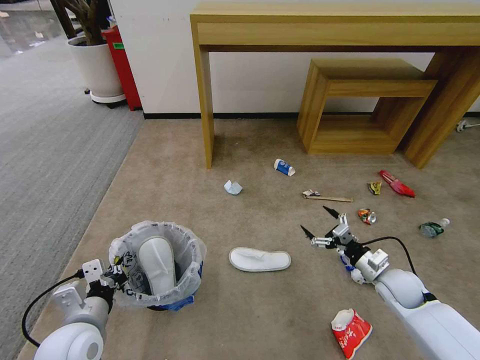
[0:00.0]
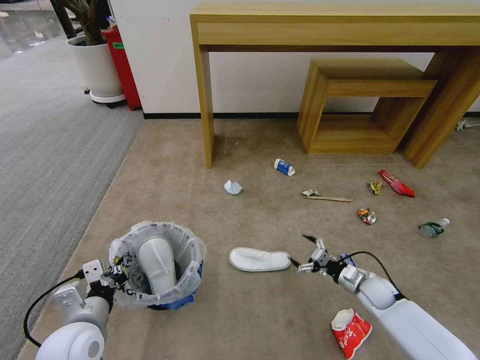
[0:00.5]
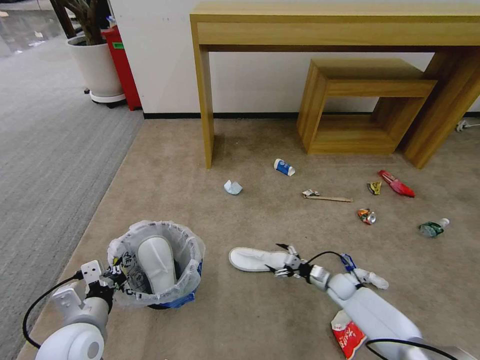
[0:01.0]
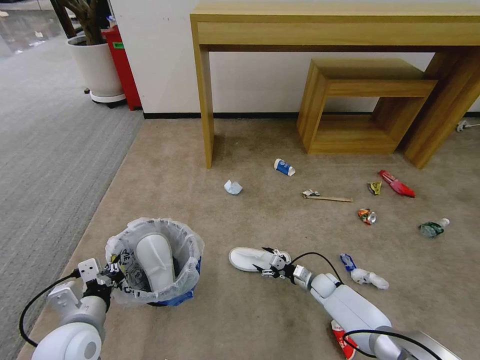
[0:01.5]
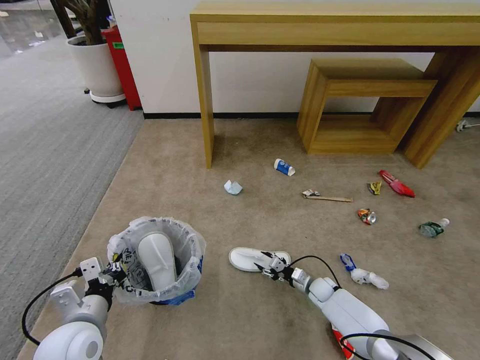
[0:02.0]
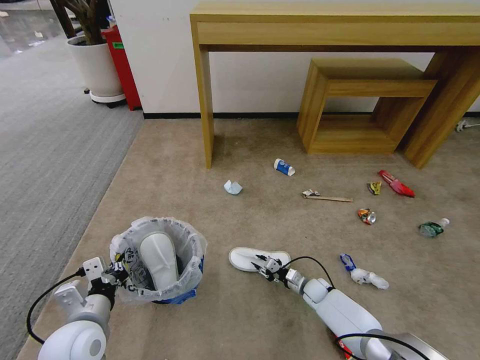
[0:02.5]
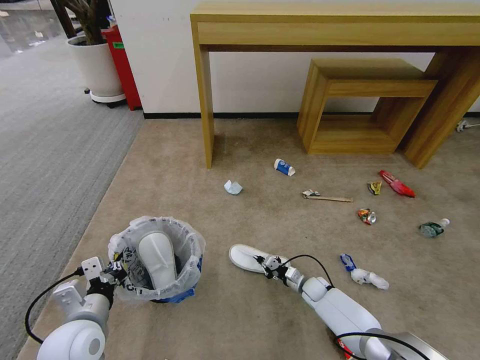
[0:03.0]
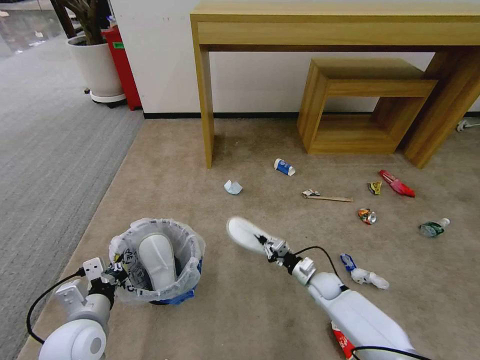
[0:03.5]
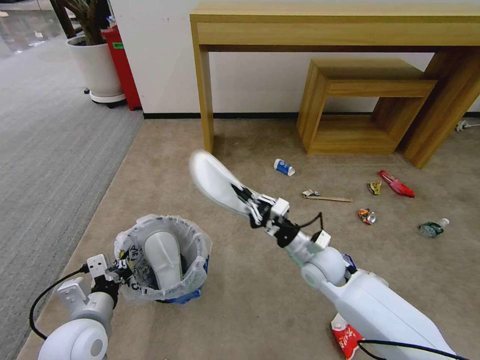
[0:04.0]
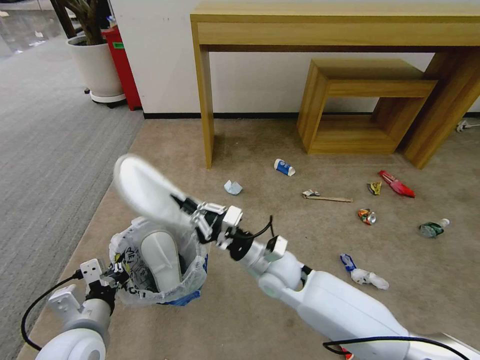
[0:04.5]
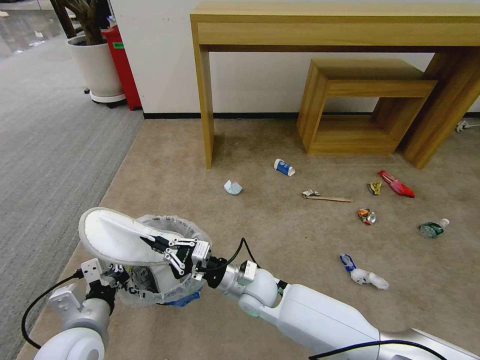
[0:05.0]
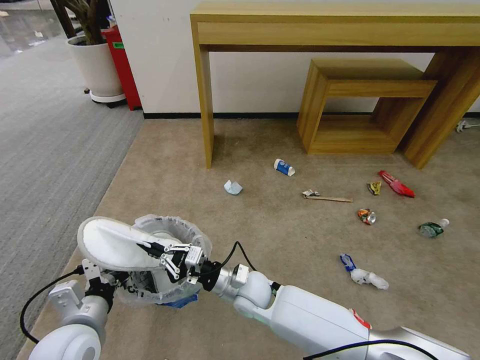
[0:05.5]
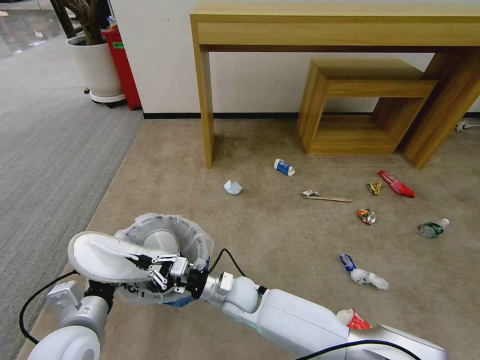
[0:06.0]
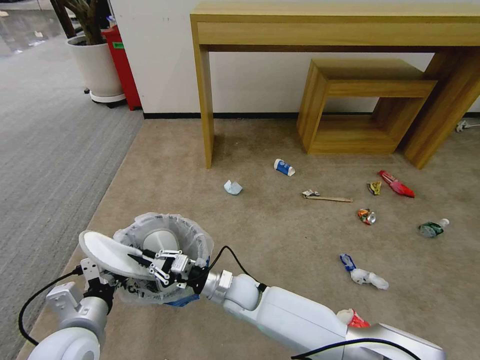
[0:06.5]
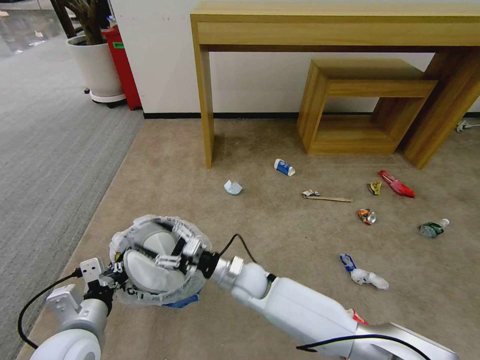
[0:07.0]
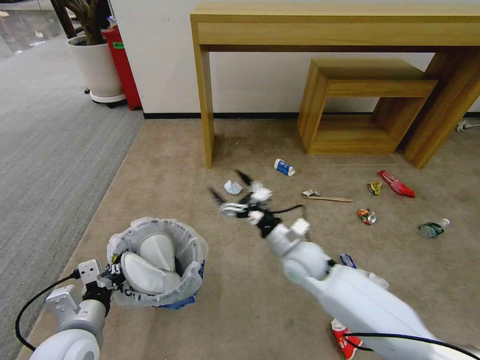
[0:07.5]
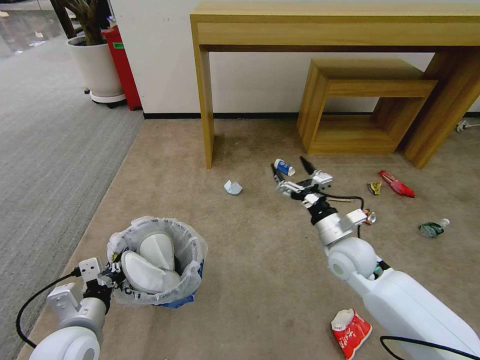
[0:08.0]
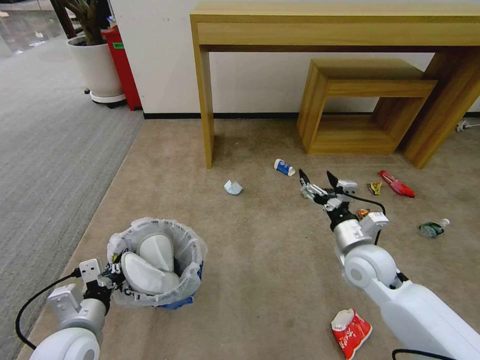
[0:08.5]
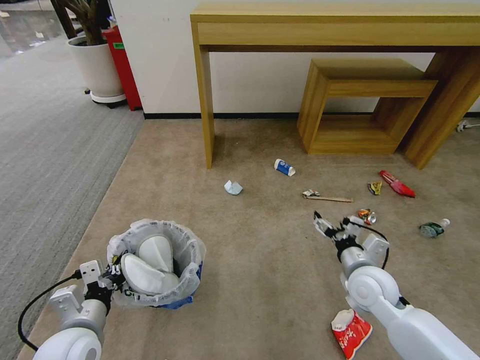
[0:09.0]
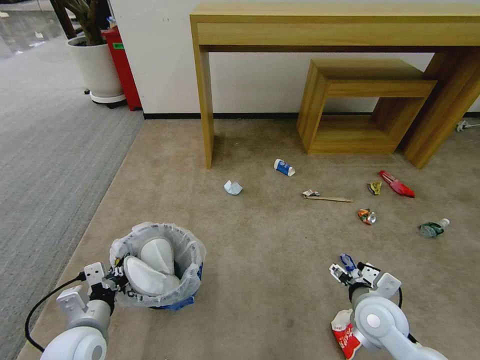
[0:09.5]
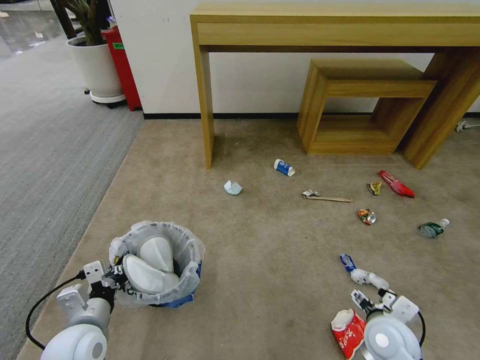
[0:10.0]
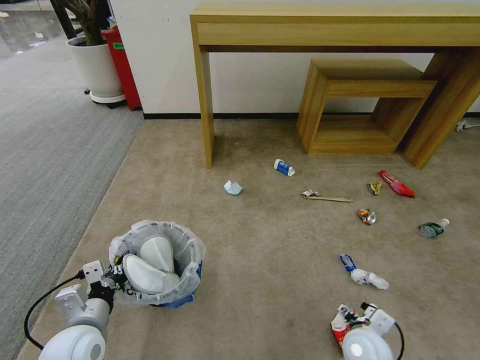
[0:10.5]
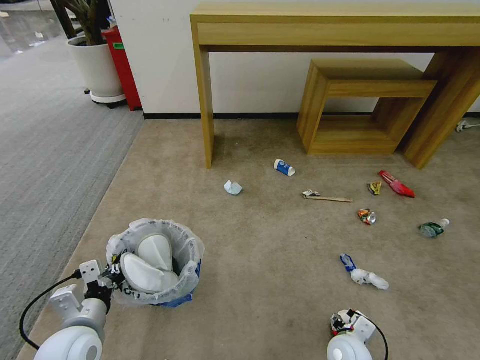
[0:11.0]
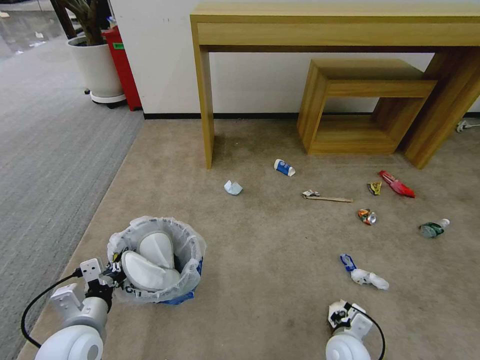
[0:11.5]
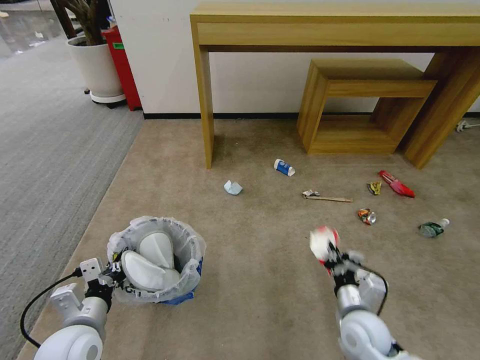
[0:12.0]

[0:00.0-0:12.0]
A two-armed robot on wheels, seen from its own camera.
Task of the whole recording: Pick up the trash bin and place the garbage on the floor into it.
0:00.0 to 0:02.0: The right gripper shifts roughly 20 cm downward and to the left, and closes up.
0:02.0 to 0:04.0: The right gripper moves upward, some 25 cm, and closes.
0:04.0 to 0:06.0: The right gripper shifts some 20 cm to the left and downward.
0:06.0 to 0:08.0: The right gripper heads to the right and upward, covering roughly 30 cm, and opens.
0:08.0 to 0:10.0: The right gripper heads backward, downward and to the right, covering roughly 15 cm.
0:10.0 to 0:12.0: The right gripper travels downward and back again, some 10 cm each way, and closes its fingers.

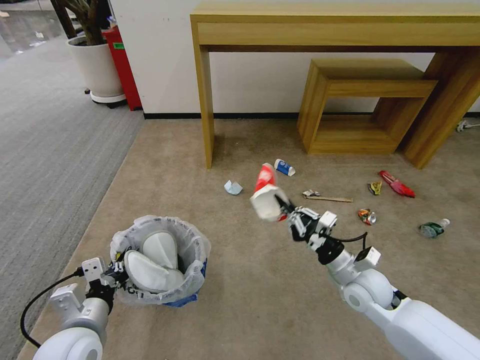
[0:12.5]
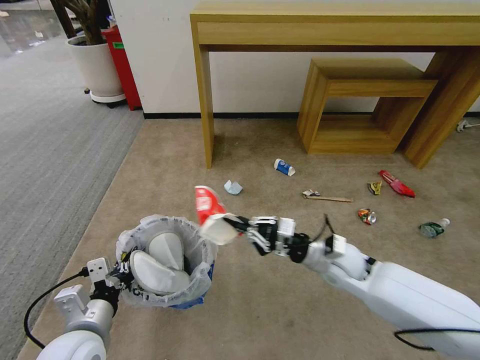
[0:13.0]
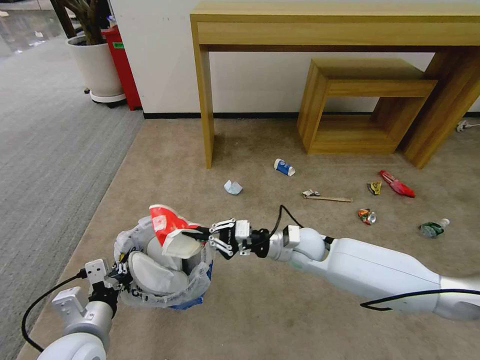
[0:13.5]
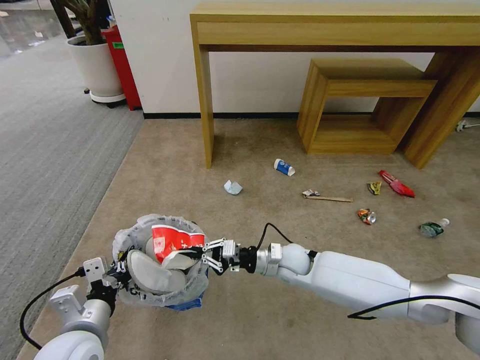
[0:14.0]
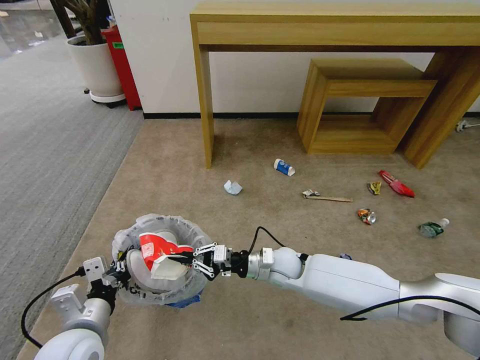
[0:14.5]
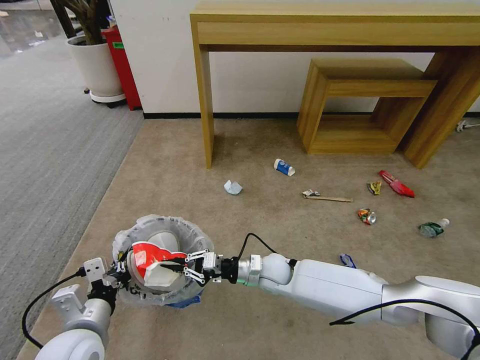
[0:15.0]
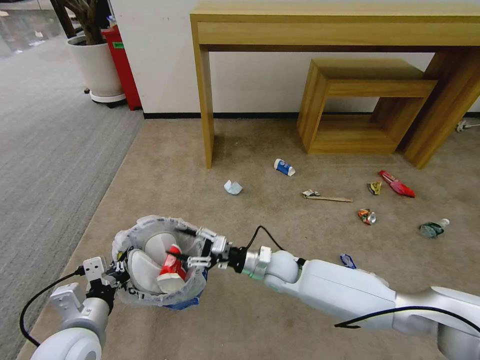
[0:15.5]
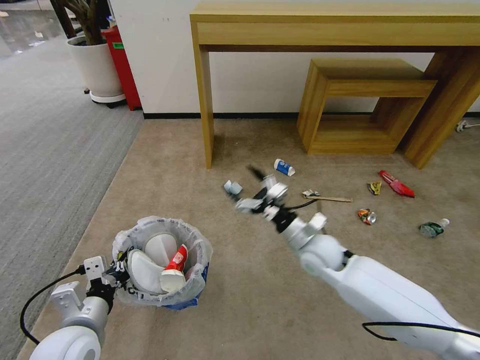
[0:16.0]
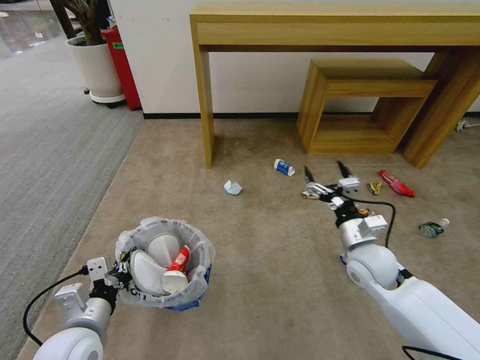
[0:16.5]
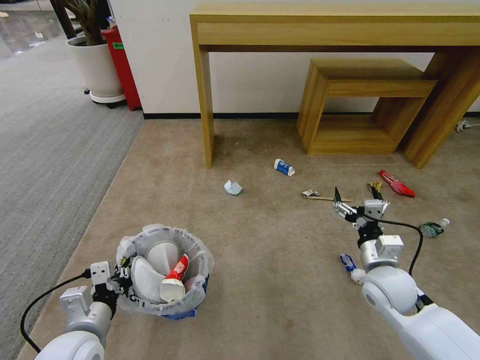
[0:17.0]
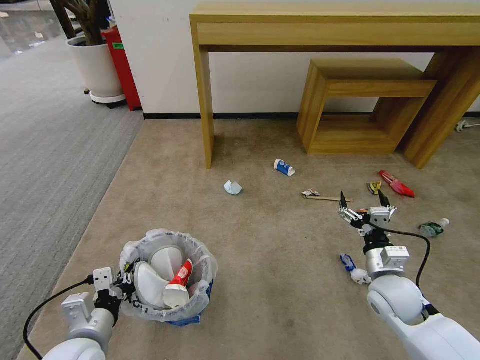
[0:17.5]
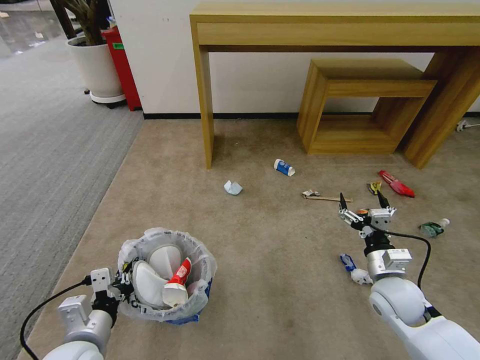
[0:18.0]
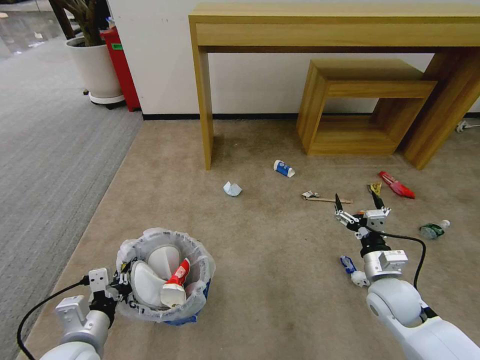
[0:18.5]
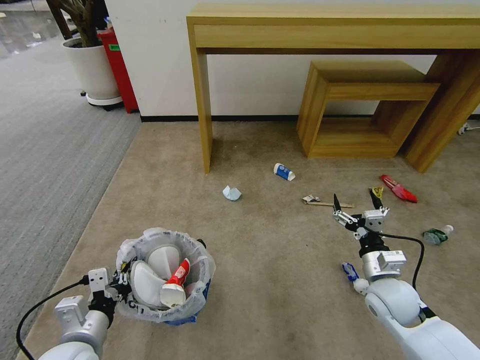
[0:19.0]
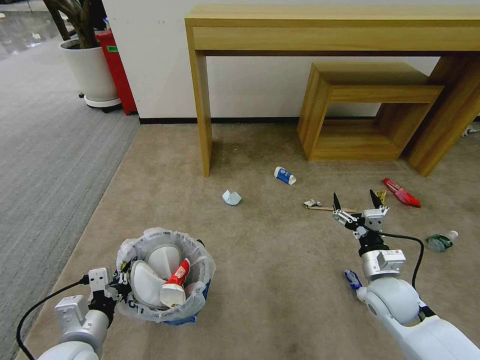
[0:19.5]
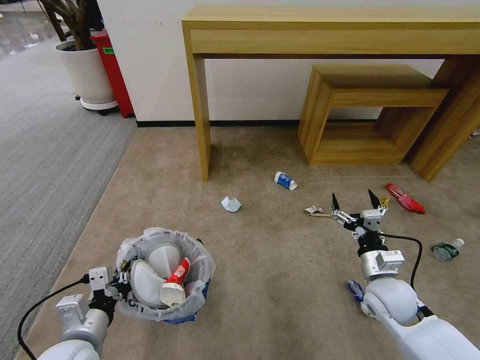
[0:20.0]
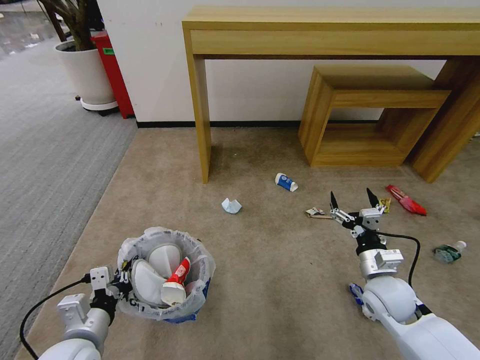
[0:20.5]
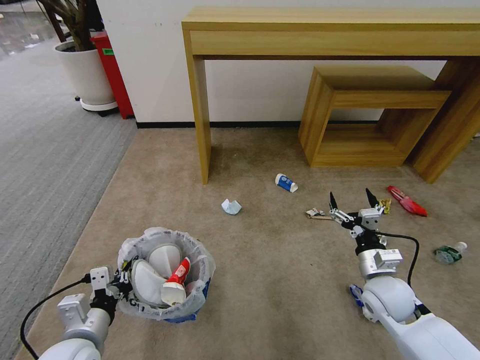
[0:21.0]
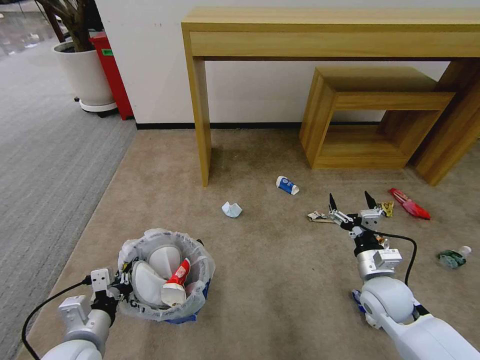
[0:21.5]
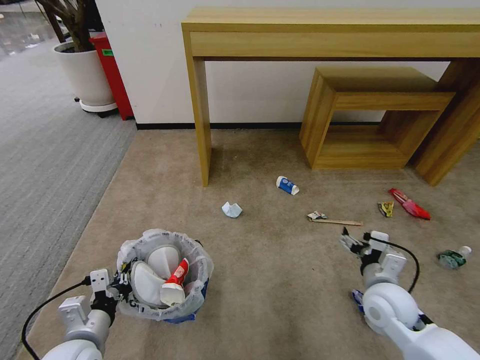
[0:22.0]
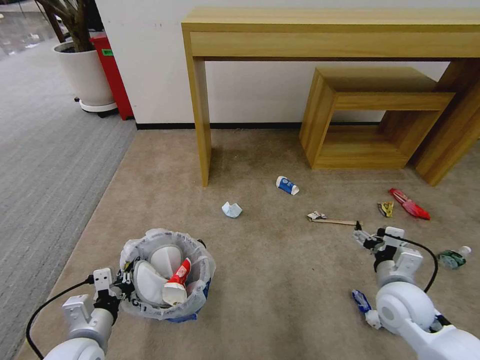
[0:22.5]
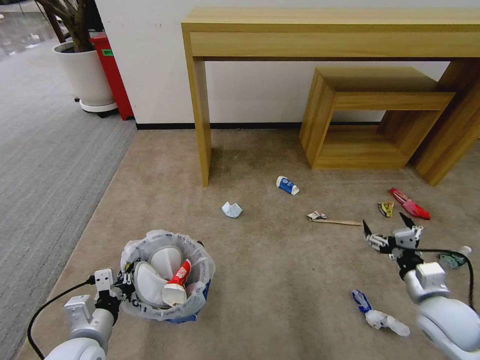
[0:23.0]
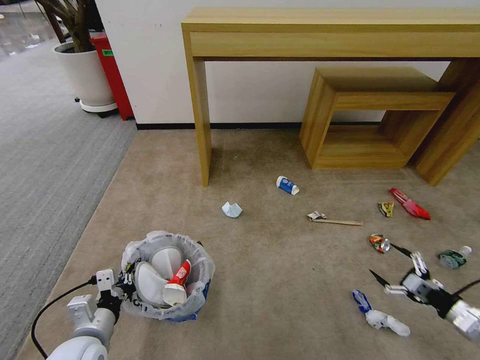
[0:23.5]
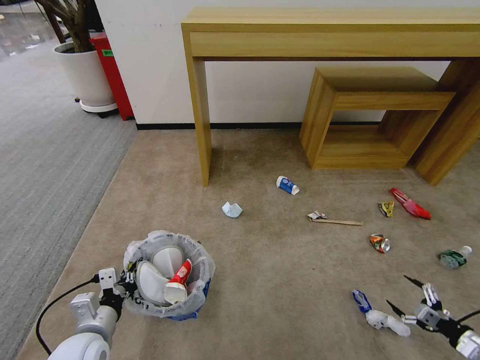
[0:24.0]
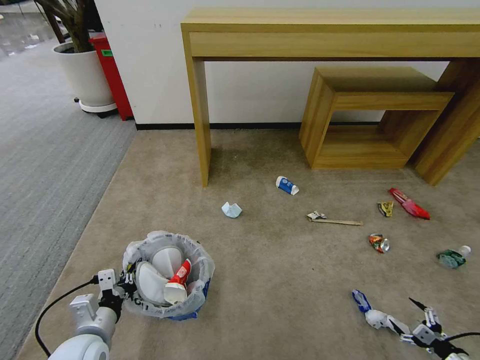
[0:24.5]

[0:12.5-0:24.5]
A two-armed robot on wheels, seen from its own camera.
Task of the whole recording: Pick up the trash bin and place the garbage on the floor into it.
0:12.5 to 0:14.5: The right gripper heads to the left and forward, covering some 20 cm.
0:14.5 to 0:16.5: The right gripper goes roughly 20 cm to the right and upward, and opens.
0:16.5 to 0:18.5: The right gripper heads backward and downward, covering some 10 cm.
0:22.5 to 0:24.5: The right gripper is displaced to the right, downward and backward by approximately 35 cm.

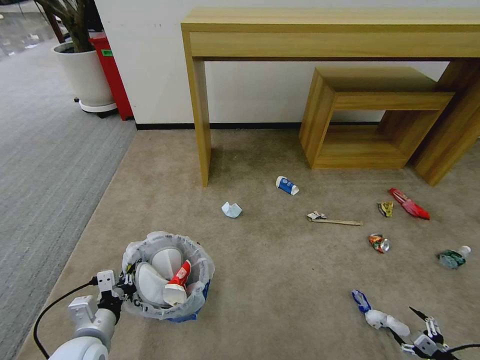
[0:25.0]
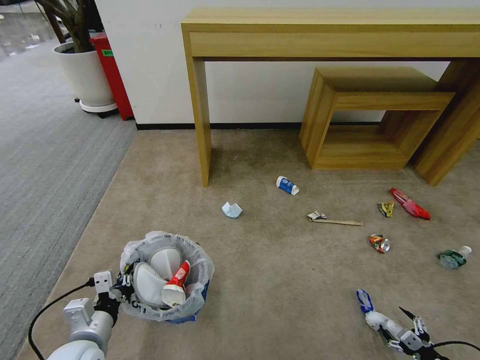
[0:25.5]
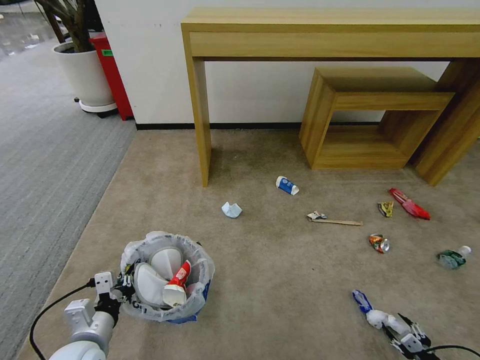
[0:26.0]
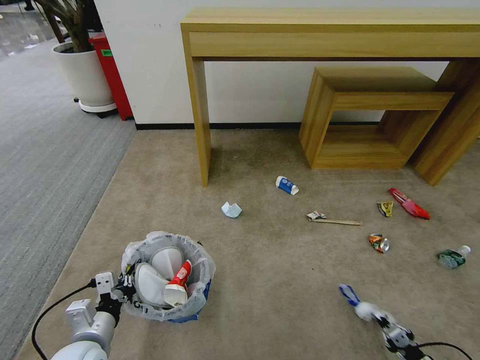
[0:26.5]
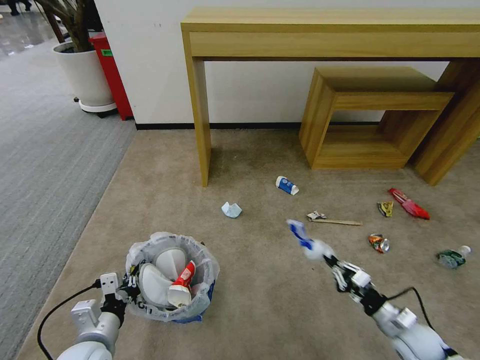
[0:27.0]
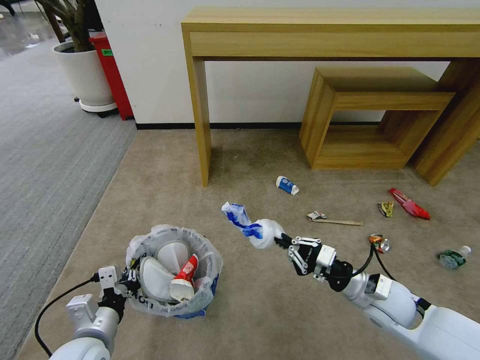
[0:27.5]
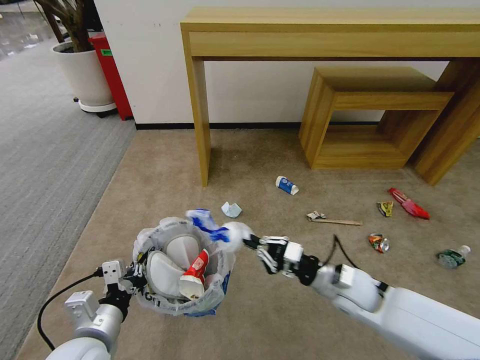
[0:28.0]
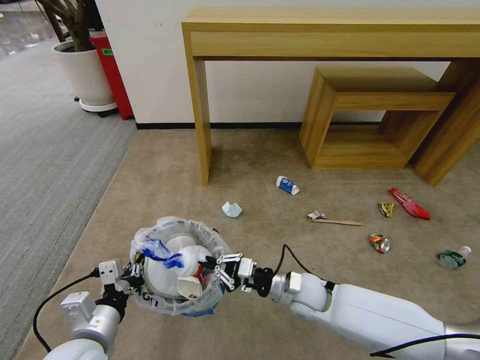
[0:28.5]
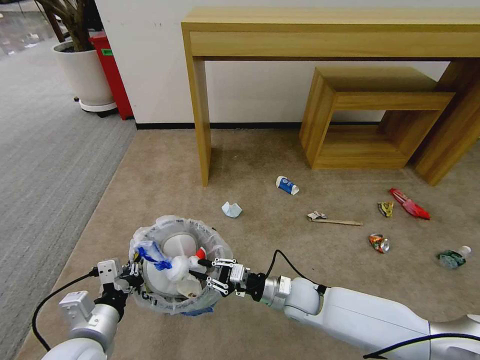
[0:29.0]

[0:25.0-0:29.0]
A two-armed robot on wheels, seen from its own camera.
Task of the whole recording: Pick up the trash bin and place the garbage on the floor into it.
0:25.0 to 0:27.0: The right gripper shifts approximately 25 cm to the left, forward and upward, and closes up.
0:27.0 to 0:29.0: The right gripper shifts some 25 cm to the left, while the left gripper moves upward, roughly 5 cm.
